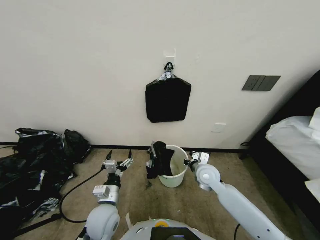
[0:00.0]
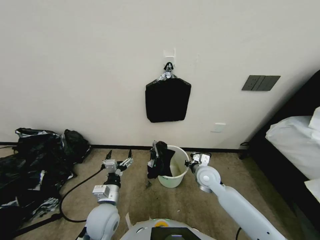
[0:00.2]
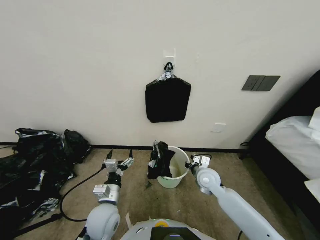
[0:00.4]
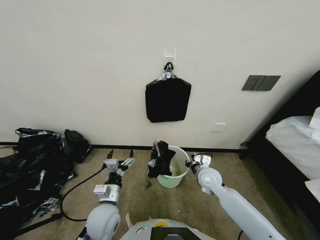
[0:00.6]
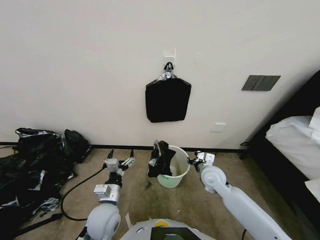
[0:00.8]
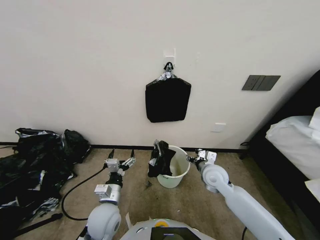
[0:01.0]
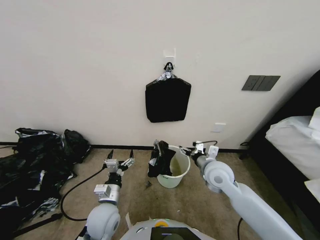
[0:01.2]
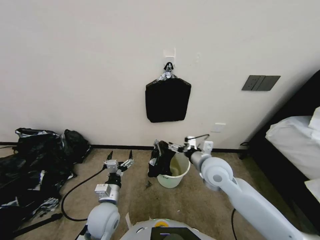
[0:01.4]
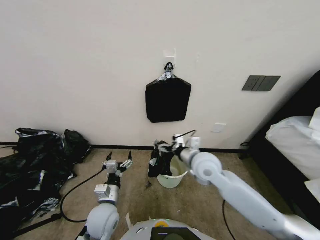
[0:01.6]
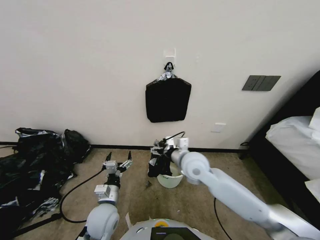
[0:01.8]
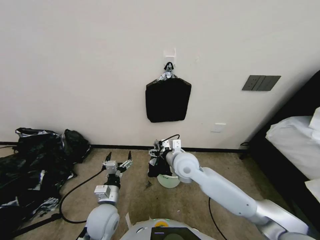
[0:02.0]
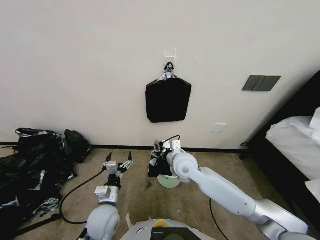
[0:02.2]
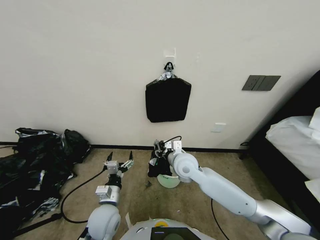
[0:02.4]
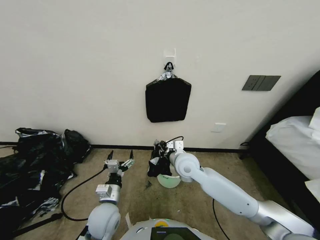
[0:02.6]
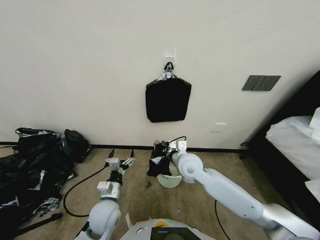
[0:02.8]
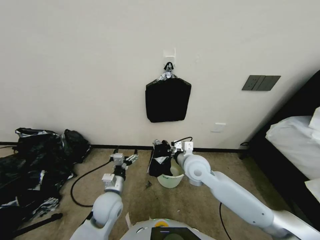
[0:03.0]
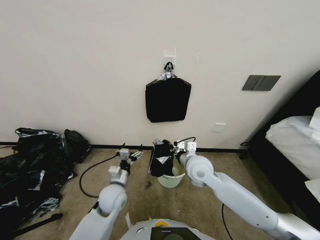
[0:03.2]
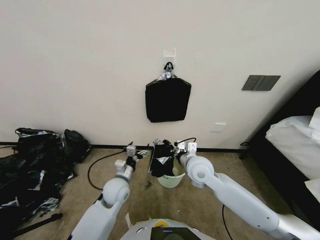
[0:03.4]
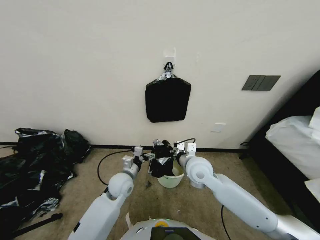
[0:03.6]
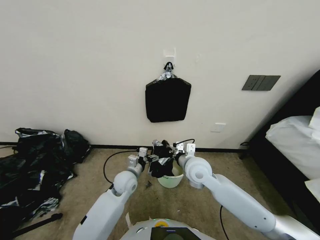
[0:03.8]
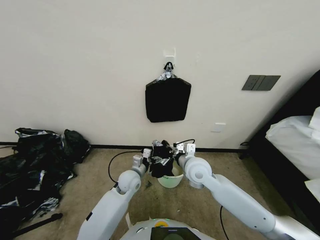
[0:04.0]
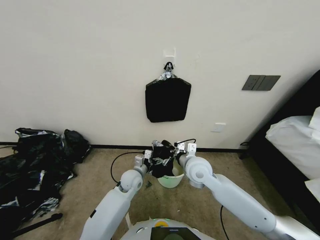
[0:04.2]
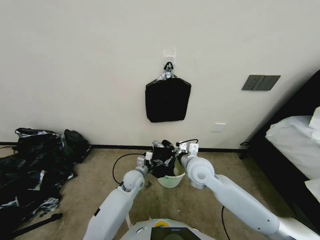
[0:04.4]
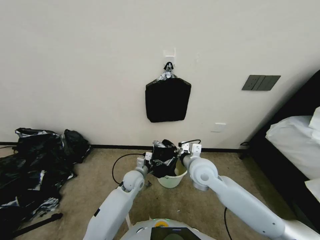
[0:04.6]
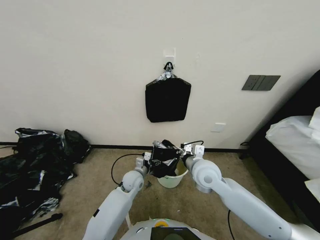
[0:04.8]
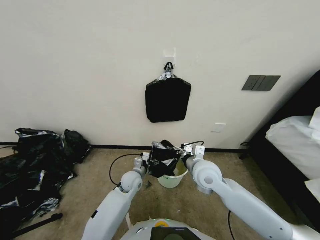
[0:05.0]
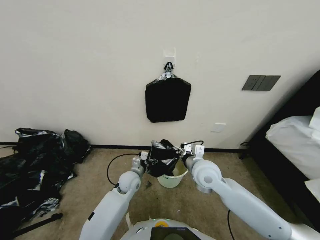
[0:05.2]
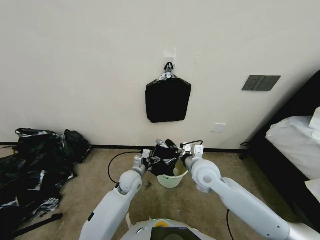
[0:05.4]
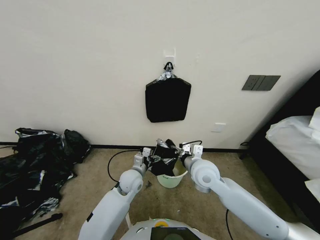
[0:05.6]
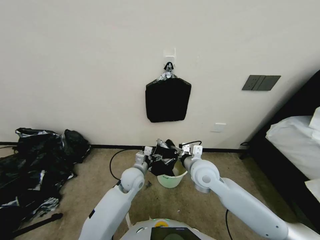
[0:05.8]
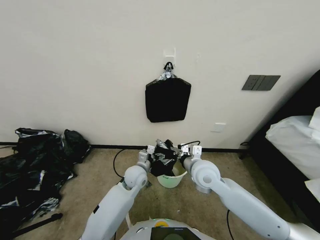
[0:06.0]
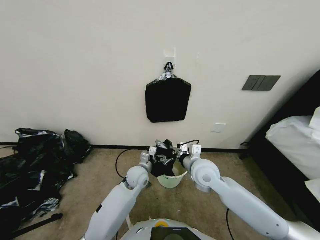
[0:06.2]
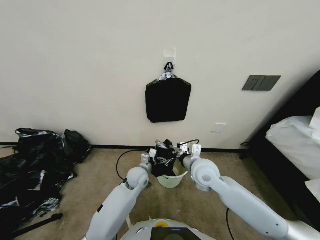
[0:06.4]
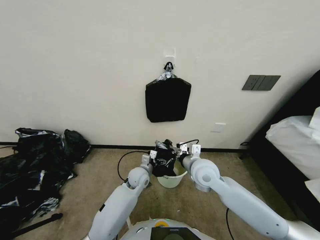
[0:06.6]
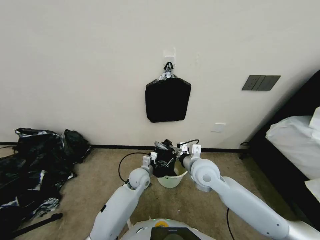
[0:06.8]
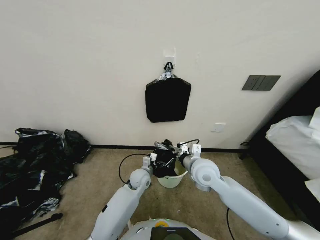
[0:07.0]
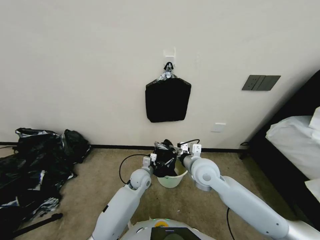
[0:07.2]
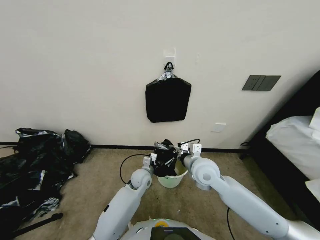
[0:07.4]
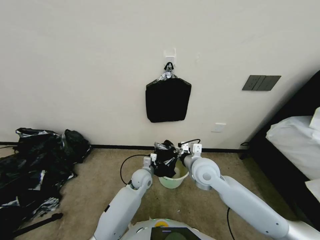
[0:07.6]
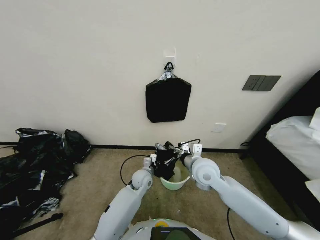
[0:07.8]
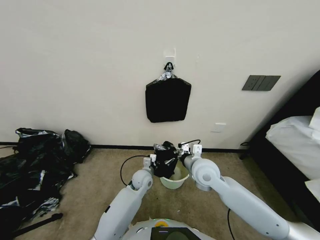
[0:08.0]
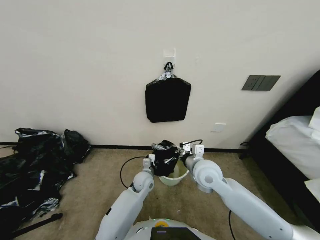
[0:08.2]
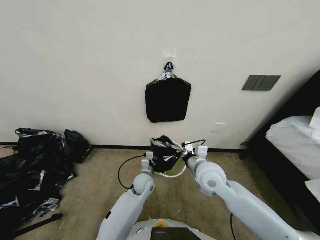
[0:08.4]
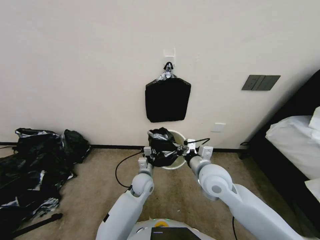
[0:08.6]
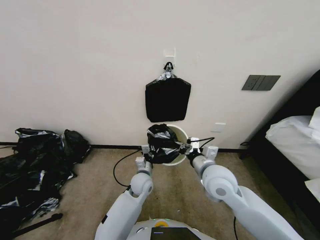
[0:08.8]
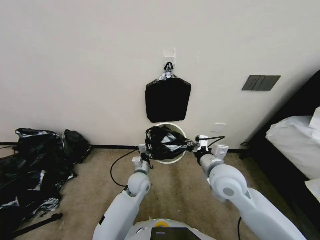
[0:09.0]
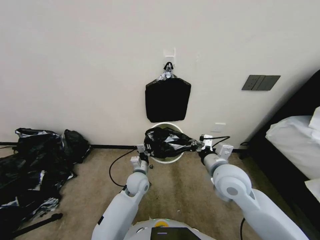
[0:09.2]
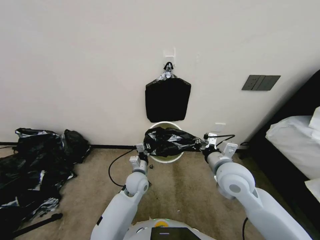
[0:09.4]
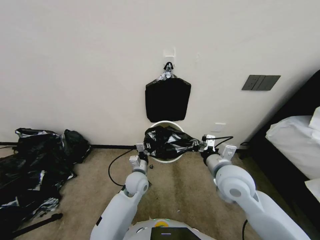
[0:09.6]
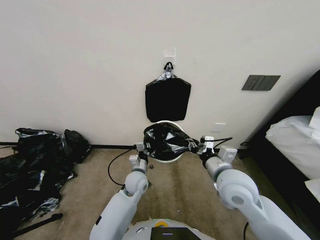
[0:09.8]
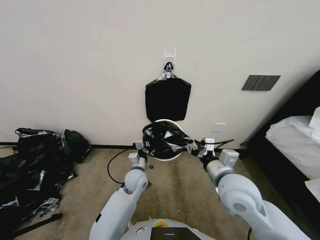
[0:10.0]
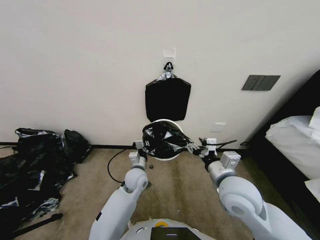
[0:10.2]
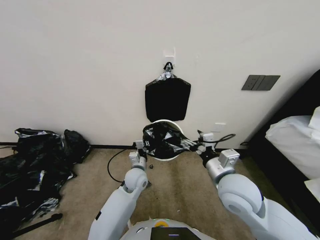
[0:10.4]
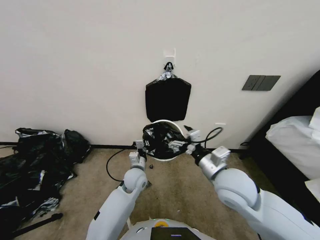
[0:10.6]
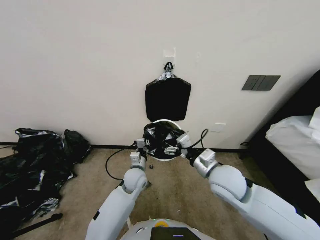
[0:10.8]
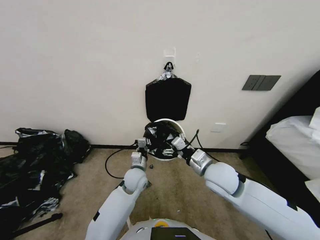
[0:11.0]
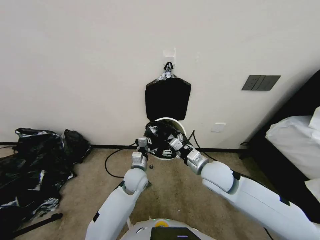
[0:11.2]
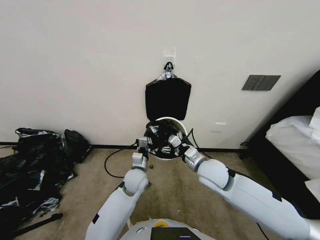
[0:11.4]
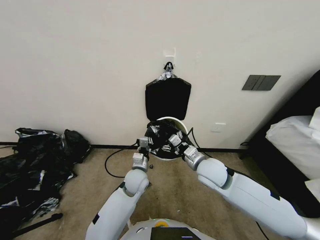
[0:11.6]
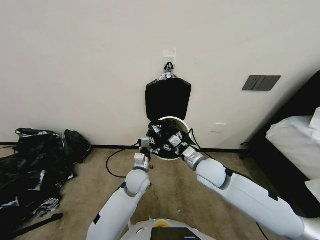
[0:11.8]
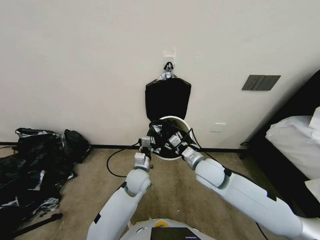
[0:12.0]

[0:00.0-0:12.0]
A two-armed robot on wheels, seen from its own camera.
Task of the whole recording: Place a trash bag onto the trash bin.
0:00.0 to 0:01.6: The right gripper goes some 10 cm upward, and opens up.
0:01.6 to 0:03.0: The right gripper travels to the left by some 5 cm, and closes.
0:03.0 to 0:04.4: The left gripper moves forward, to the right and downward, roughly 15 cm.
0:04.4 to 0:06.0: The left gripper travels upward by roughly 5 cm.
0:06.0 to 0:07.6: The left gripper heads downward, covering about 5 cm, and closes its fingers.
0:07.6 to 0:09.0: The left gripper closes. The right gripper shifts by about 5 cm.
0:09.0 to 0:10.4: The right gripper opens its fingers.
0:10.4 to 0:12.0: The right gripper heads forward, covering about 10 cm.

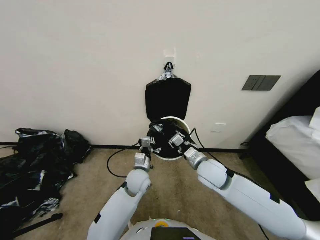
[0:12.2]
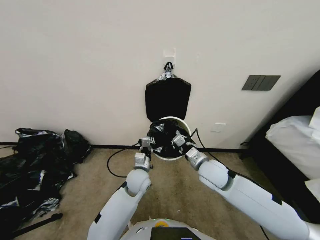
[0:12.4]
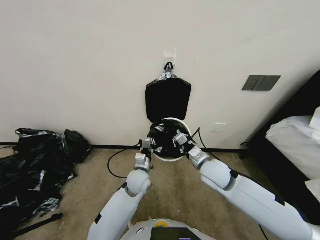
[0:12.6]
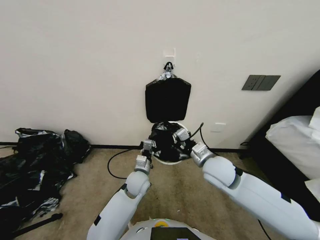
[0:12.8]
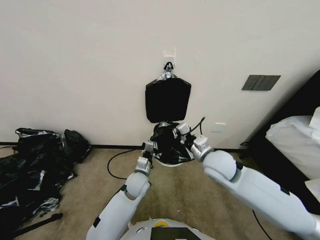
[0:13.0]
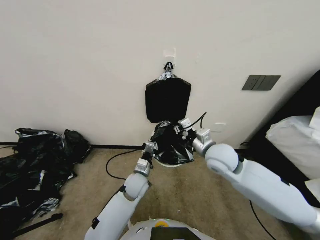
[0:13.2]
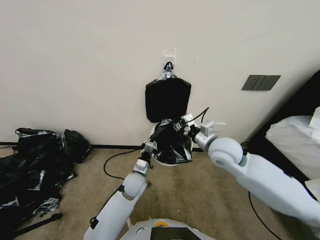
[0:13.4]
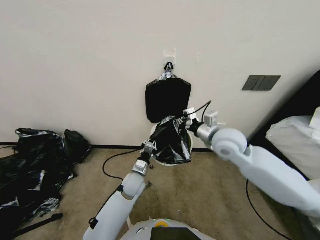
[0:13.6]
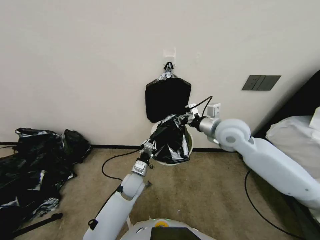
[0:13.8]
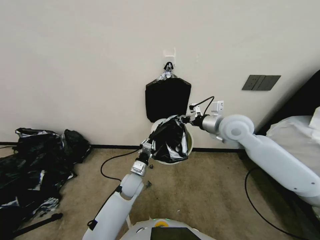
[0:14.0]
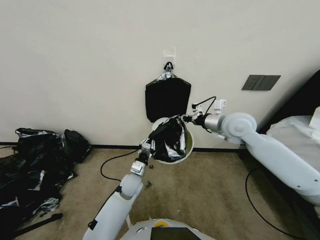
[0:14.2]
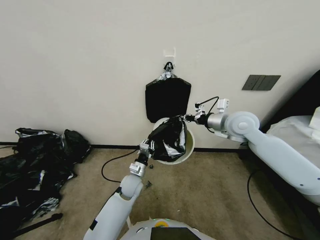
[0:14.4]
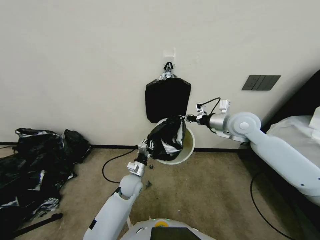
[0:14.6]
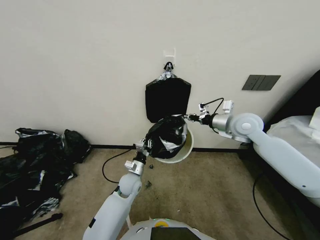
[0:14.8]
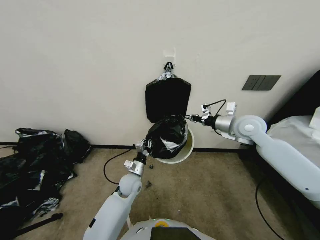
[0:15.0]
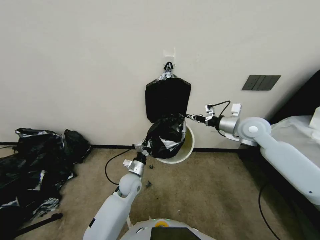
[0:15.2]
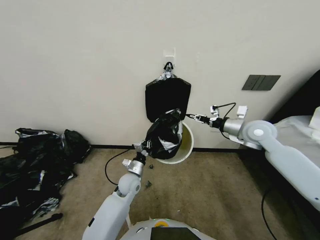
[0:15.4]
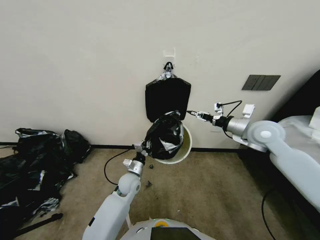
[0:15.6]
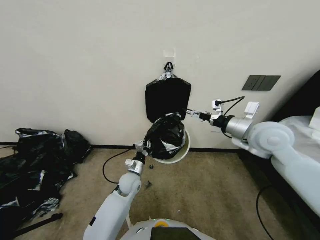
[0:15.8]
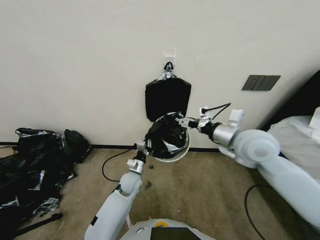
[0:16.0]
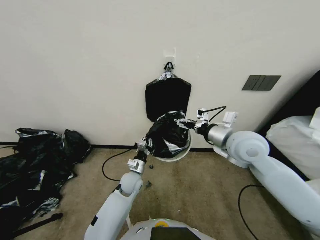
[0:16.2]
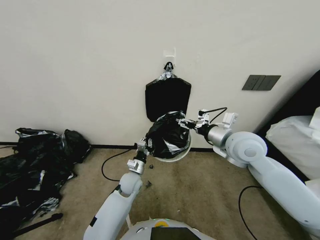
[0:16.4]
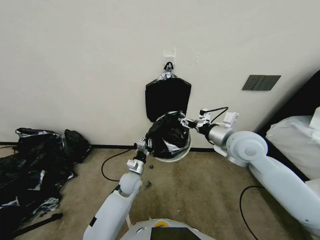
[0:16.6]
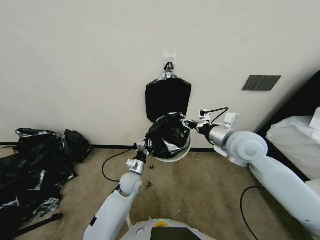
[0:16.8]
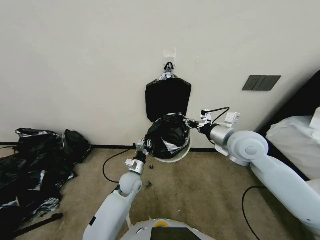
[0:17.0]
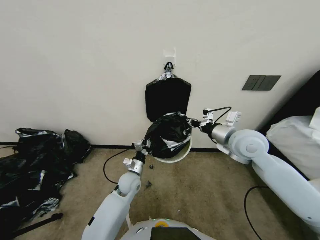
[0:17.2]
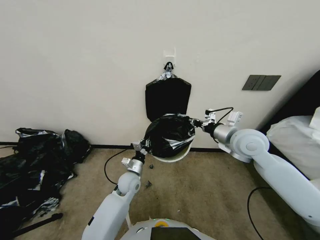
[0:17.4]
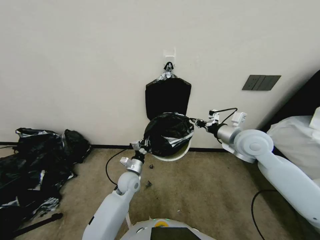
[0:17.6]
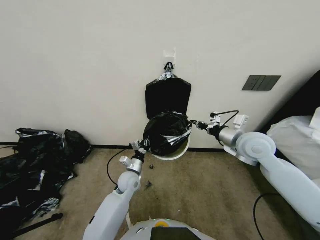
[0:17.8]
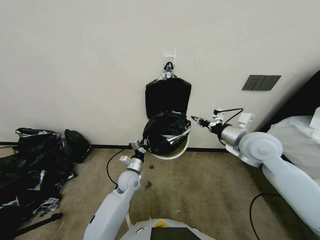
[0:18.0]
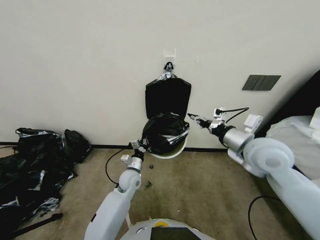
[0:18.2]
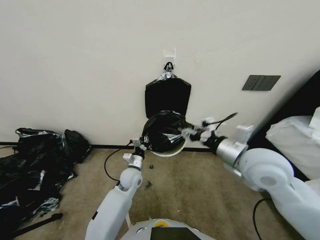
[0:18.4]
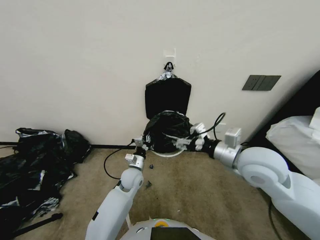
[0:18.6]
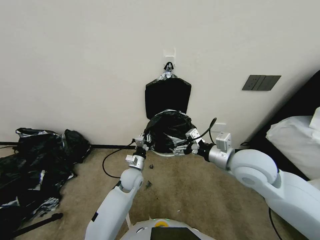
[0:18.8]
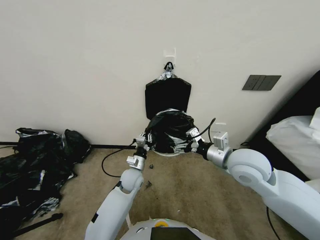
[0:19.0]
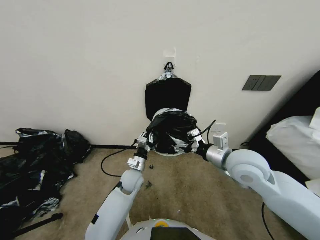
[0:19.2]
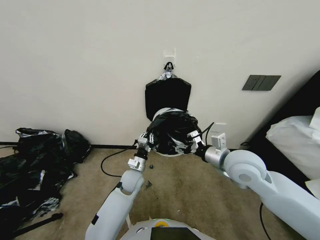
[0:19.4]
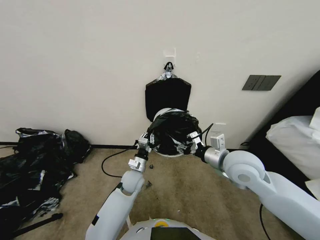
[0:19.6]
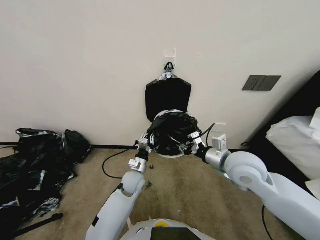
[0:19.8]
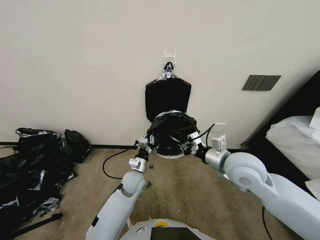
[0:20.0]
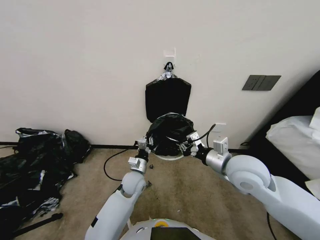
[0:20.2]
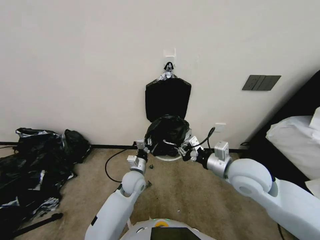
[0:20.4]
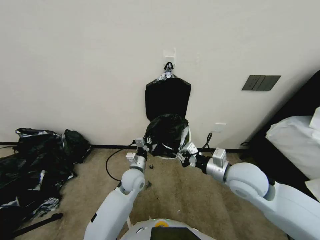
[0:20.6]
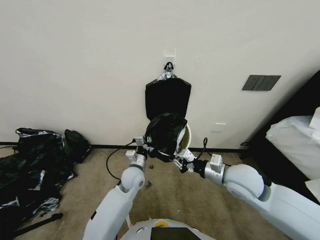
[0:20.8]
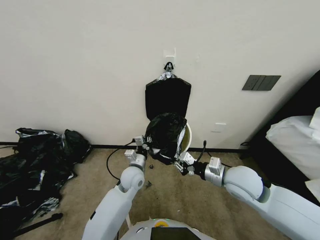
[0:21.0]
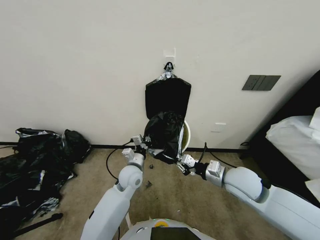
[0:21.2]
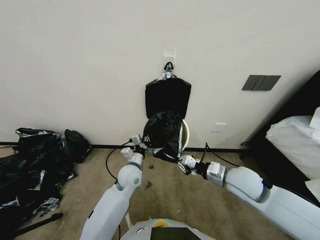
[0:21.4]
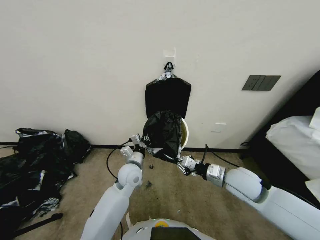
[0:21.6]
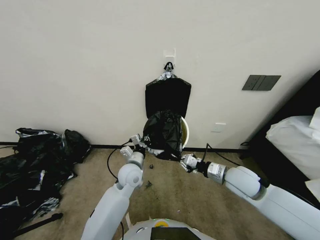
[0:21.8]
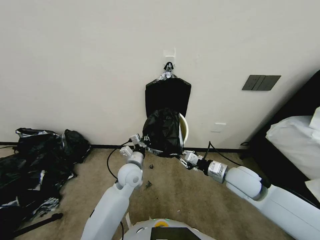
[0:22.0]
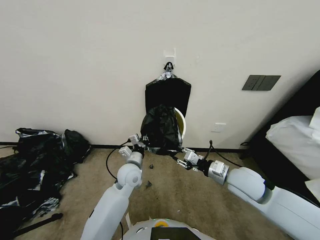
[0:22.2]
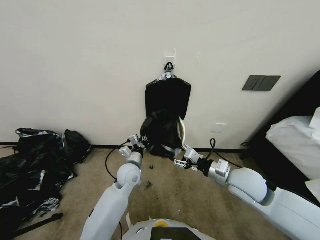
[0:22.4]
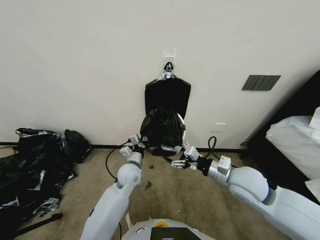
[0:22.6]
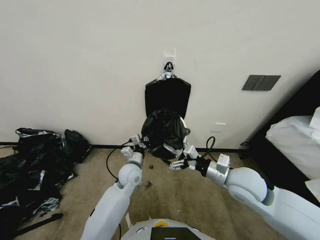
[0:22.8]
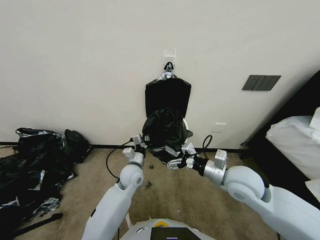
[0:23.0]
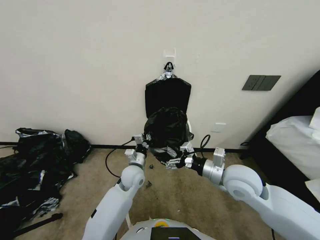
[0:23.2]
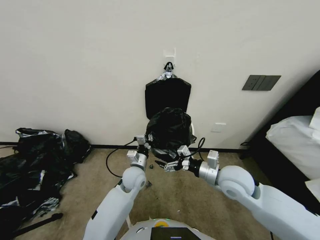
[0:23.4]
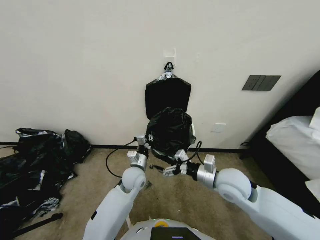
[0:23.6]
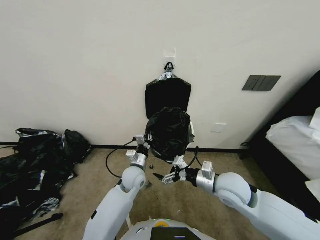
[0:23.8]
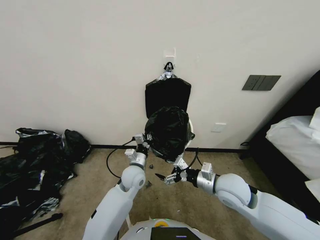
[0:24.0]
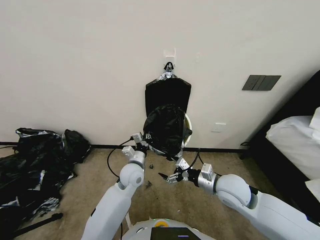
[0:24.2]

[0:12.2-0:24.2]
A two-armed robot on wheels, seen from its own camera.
Task of the whole recording: Place a trash bag onto the trash bin.
0:12.2 to 0:13.8: The right gripper is displaced upward and forward by some 15 cm, and closes.
0:13.8 to 0:15.2: The right gripper shifts some 10 cm to the right and forward.
0:15.2 to 0:16.6: The right gripper moves backward and to the left, about 10 cm, and opens.
0:16.6 to 0:18.2: The right gripper closes its fingers.
0:18.2 to 0:19.8: The right gripper is displaced to the left by approximately 5 cm, and opens and closes again.
0:19.8 to 0:21.2: The right gripper travels downward by approximately 5 cm.
0:21.2 to 0:22.6: The right gripper opens.
